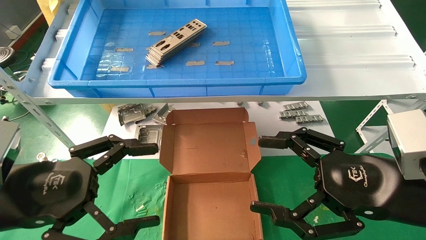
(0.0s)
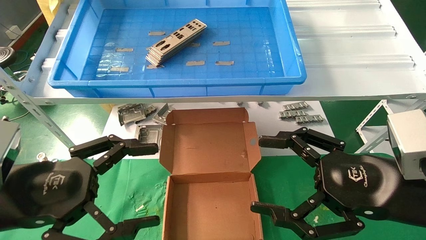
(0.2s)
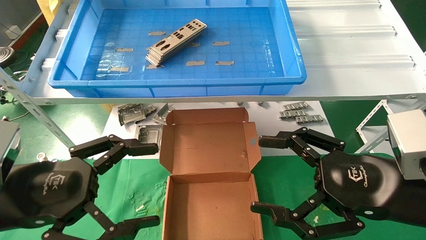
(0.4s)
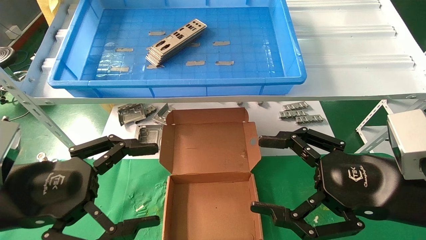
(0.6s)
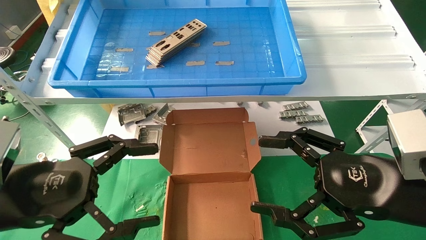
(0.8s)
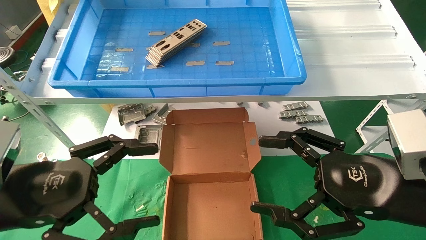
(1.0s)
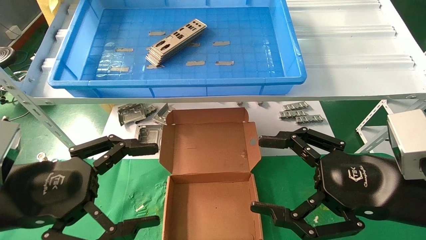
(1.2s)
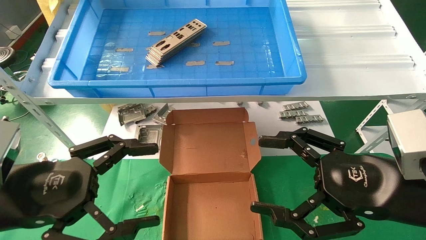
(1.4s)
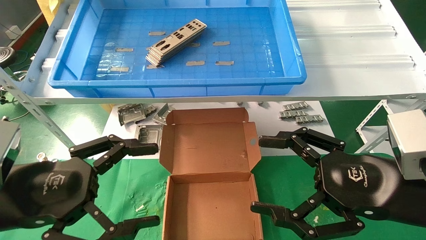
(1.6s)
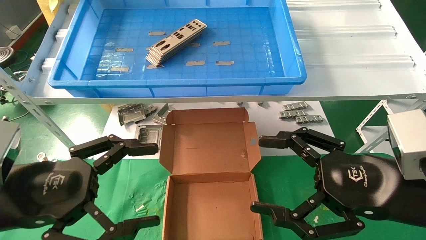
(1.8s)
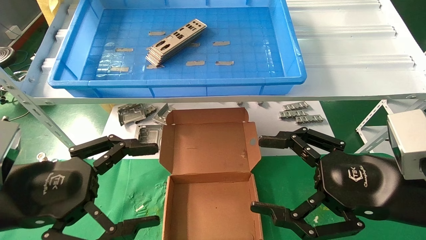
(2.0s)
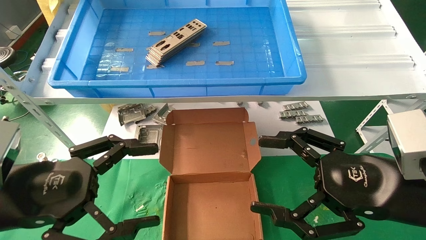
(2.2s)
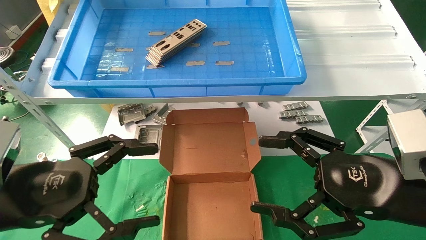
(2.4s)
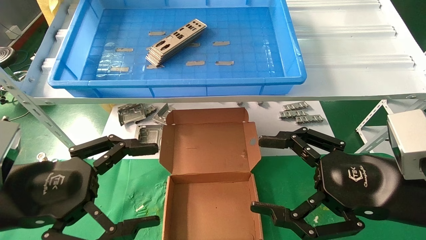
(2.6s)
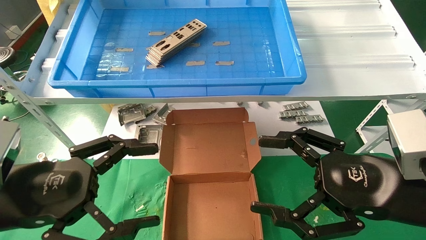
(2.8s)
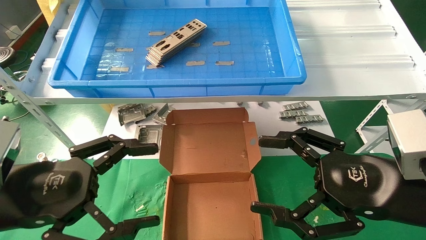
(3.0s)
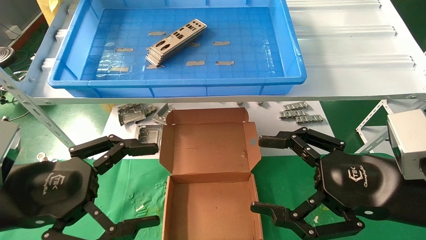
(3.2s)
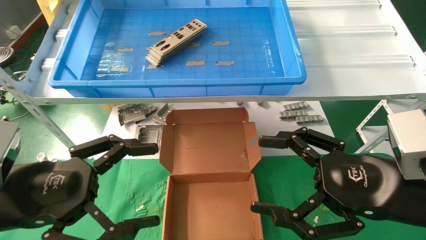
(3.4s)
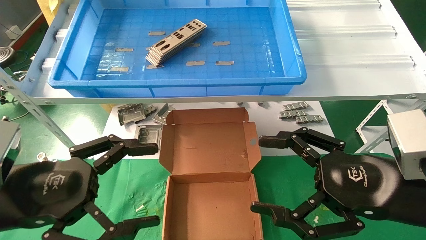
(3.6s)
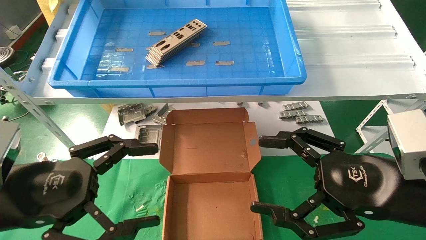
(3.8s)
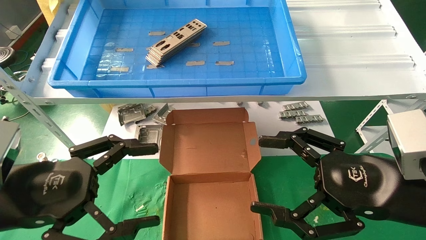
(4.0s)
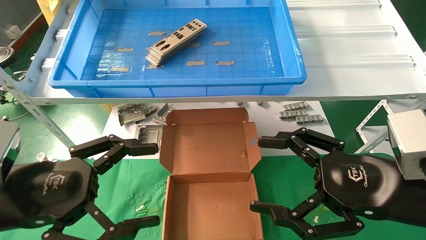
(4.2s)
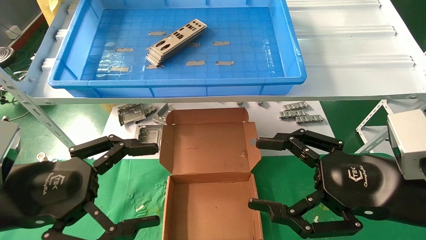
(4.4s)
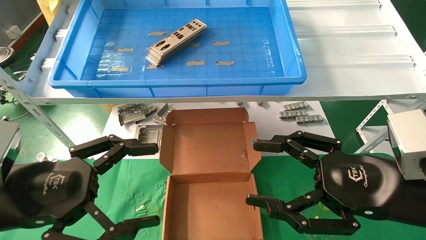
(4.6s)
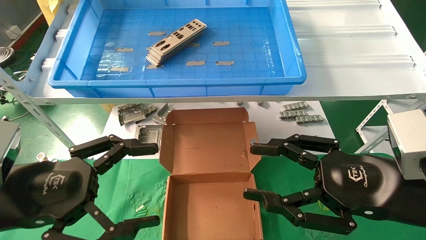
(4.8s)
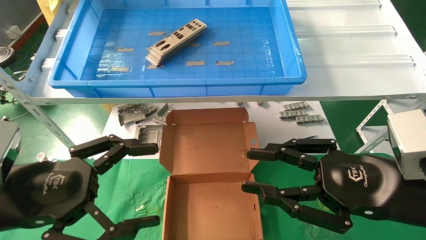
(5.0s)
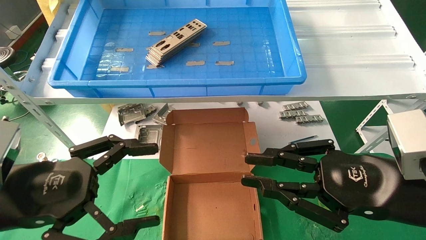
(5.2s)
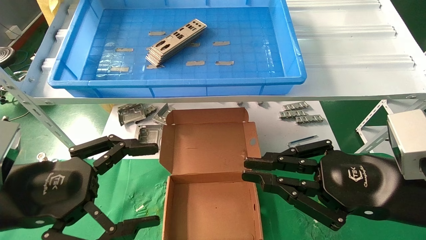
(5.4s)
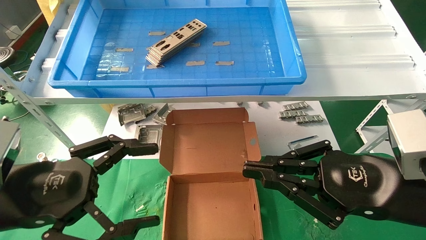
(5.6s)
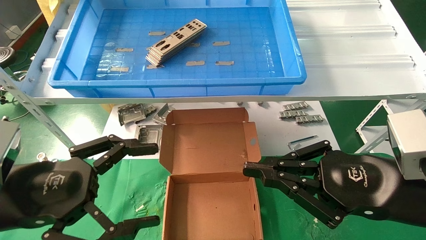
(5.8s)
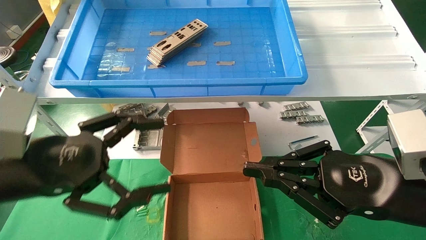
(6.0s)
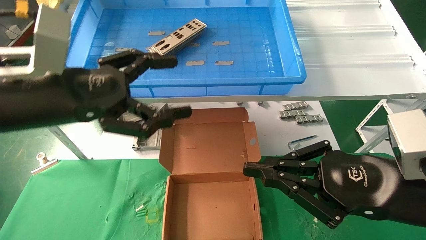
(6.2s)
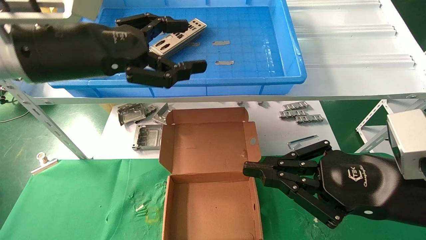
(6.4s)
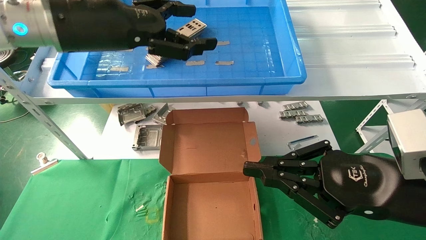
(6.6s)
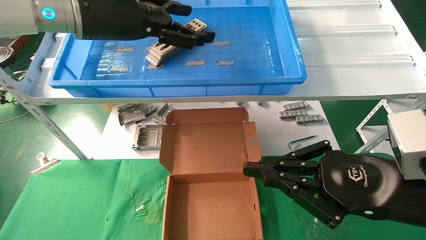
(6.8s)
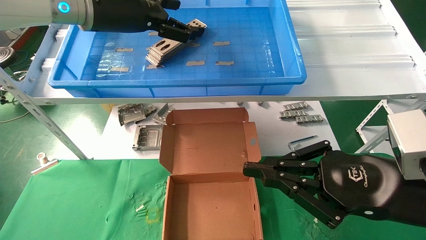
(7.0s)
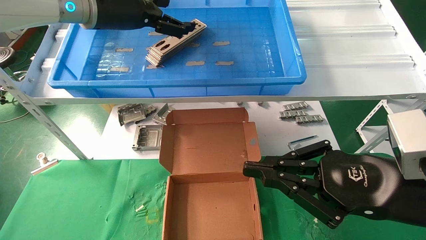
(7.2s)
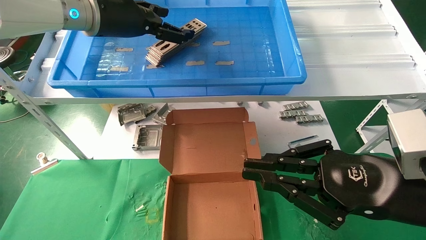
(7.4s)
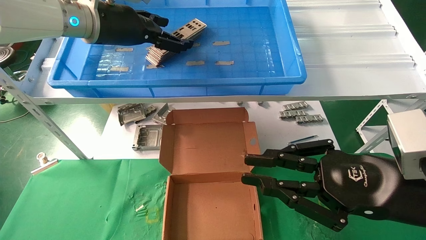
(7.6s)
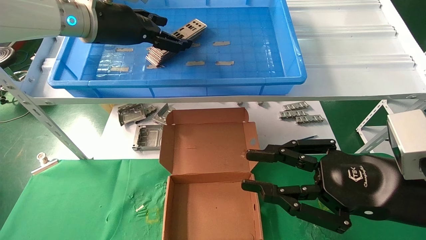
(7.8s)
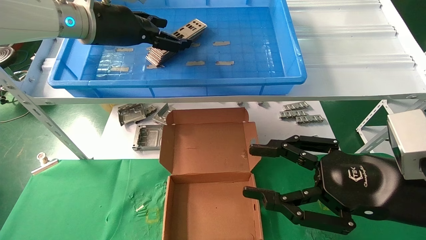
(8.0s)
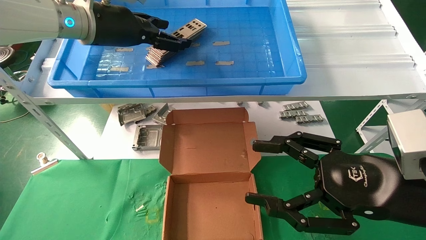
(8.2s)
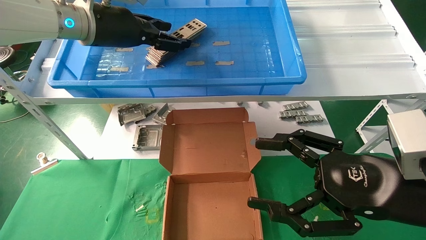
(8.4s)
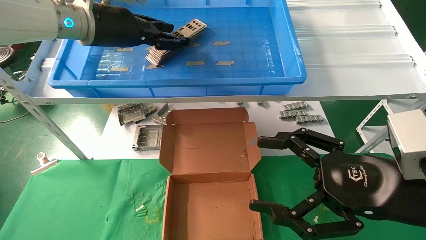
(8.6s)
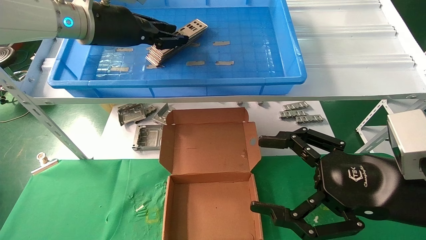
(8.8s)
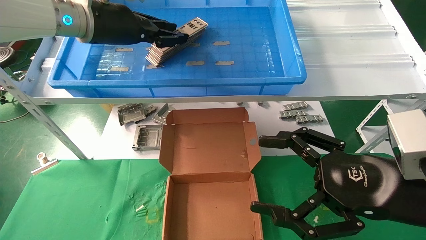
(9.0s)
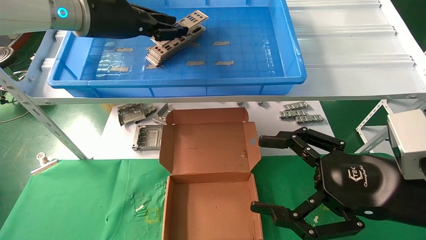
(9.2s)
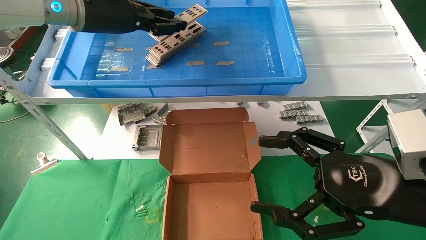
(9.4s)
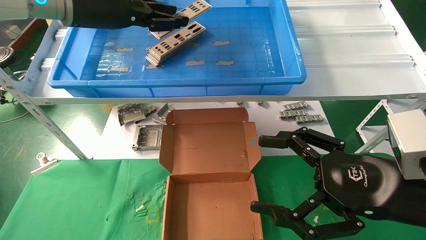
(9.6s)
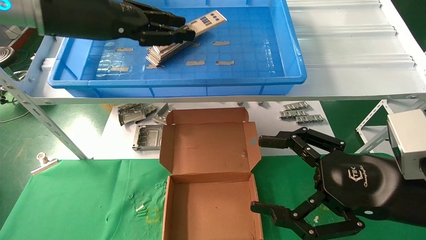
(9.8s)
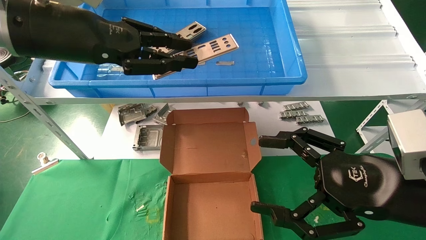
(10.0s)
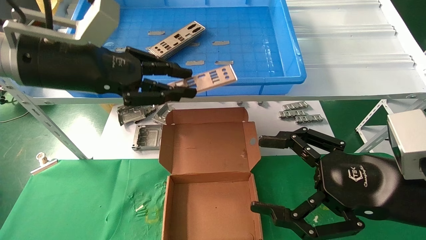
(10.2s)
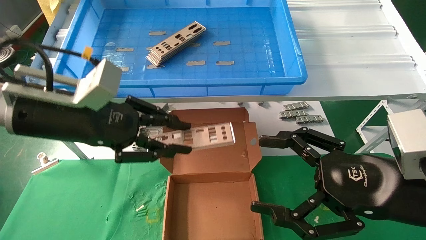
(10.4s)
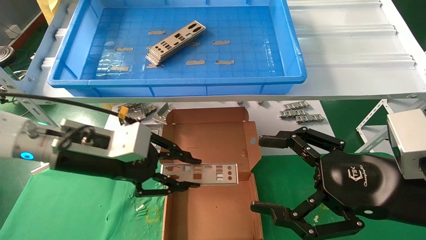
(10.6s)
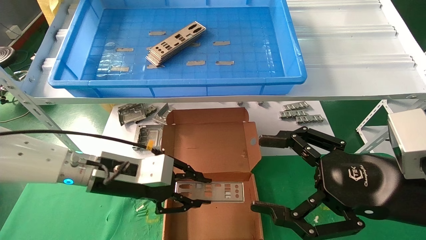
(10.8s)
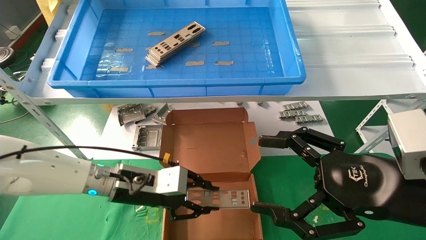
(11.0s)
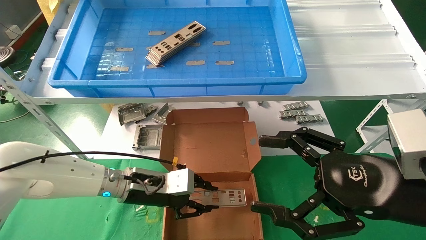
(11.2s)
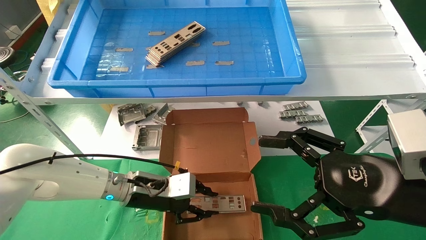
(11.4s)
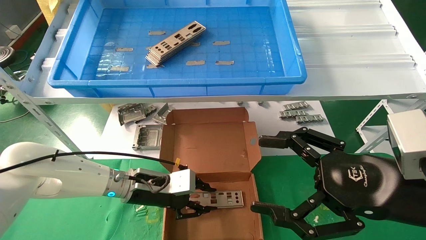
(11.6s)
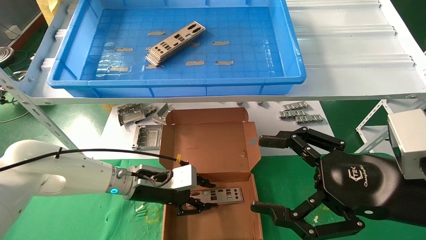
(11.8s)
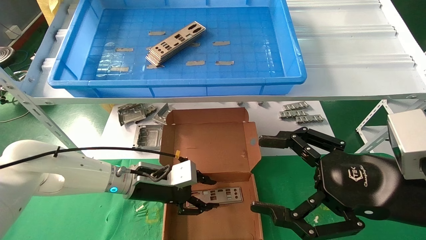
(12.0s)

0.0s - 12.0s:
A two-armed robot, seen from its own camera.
Task of the whole recording: pick up the parts on the tray and put them in the cardboard box.
Step, 6.4s - 9.0s: Pick up the IO bracket from the container box.
0.0s - 4.4s: Both grippers stay put.
4.4s - 6.0s: The left gripper goes about 5 cm upward. Meanwhile the right gripper closes.
6.0s - 7.6s: The left gripper is displaced forward and upward by approximately 25 cm.
7.6s - 9.0s: The left gripper closes, while the right gripper opens its fingers.
9.0s - 10.4s: The left gripper goes about 15 cm downward and backward.
10.4s - 12.0s: The left gripper goes about 20 cm downward and forward.

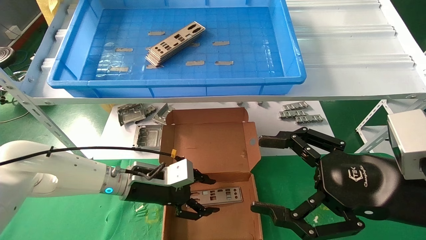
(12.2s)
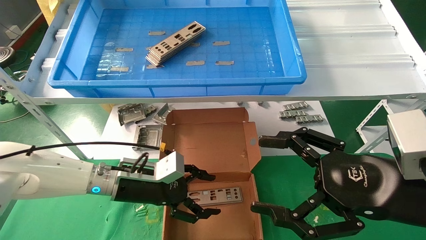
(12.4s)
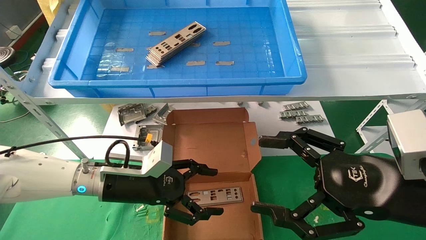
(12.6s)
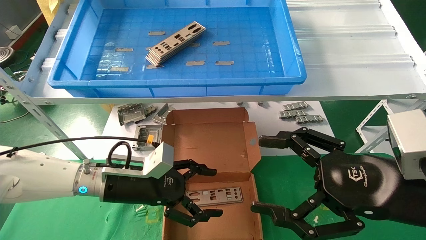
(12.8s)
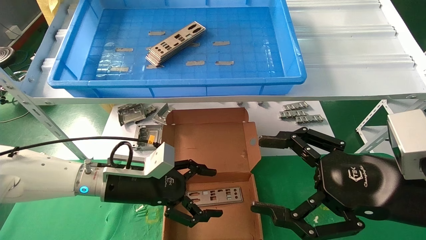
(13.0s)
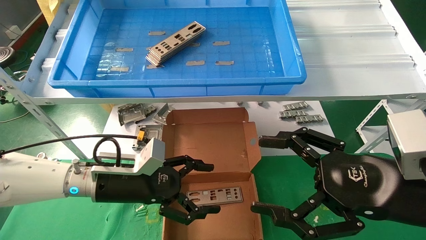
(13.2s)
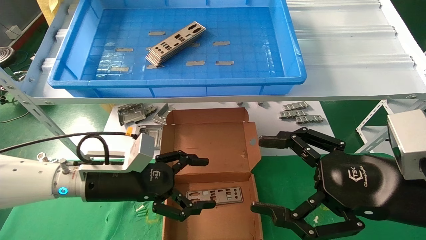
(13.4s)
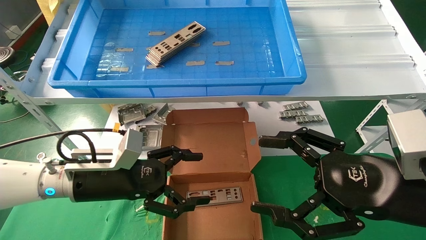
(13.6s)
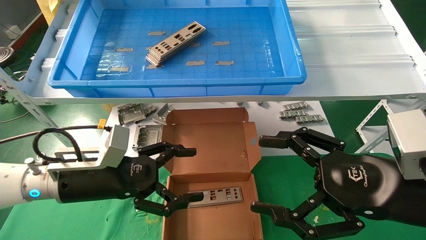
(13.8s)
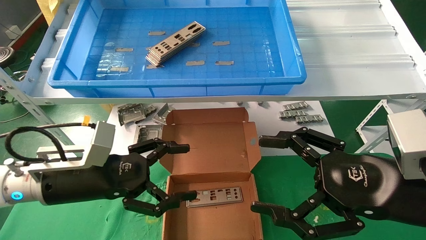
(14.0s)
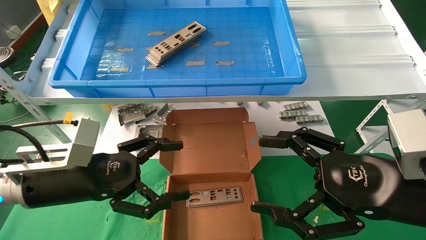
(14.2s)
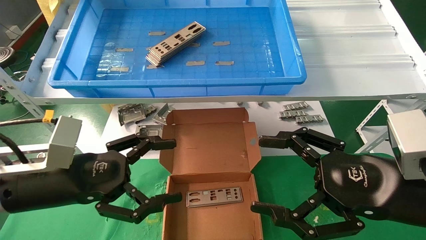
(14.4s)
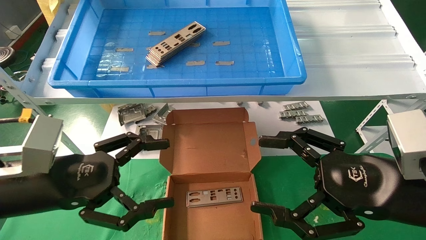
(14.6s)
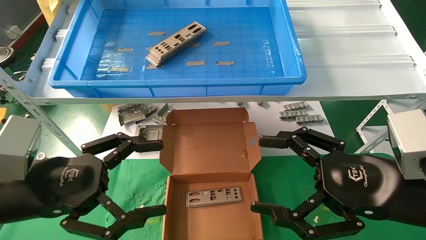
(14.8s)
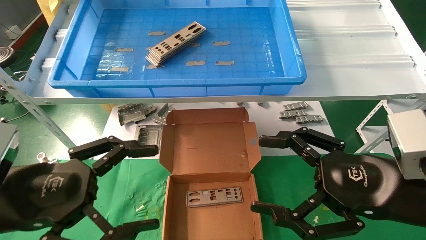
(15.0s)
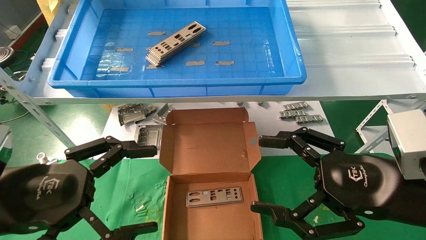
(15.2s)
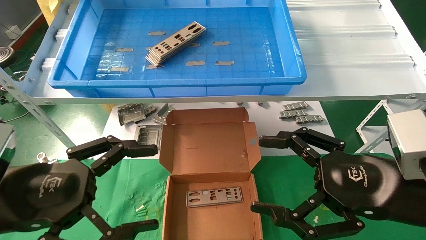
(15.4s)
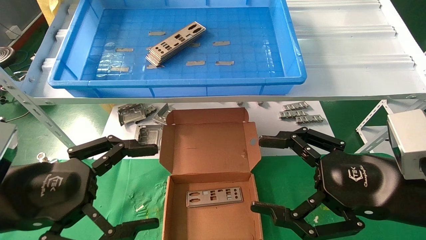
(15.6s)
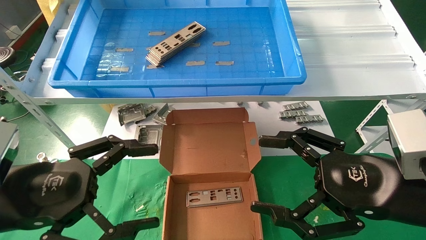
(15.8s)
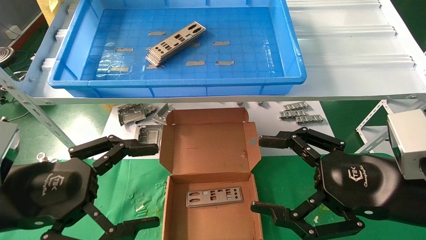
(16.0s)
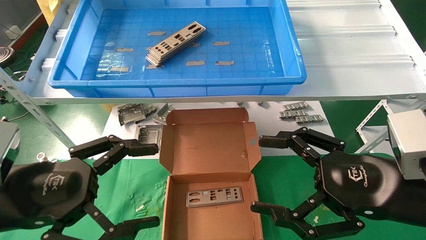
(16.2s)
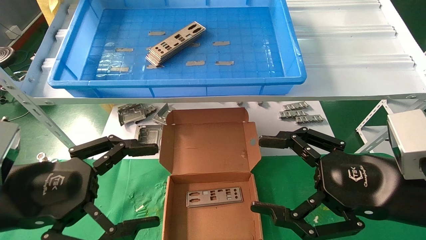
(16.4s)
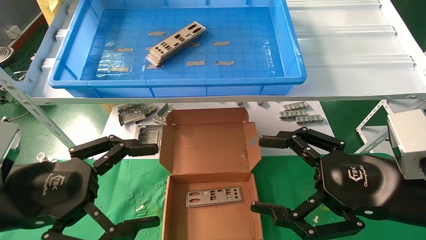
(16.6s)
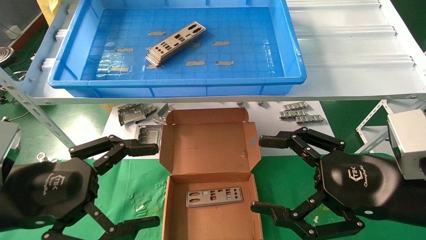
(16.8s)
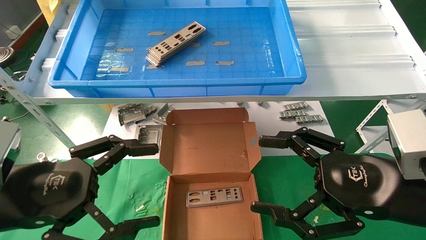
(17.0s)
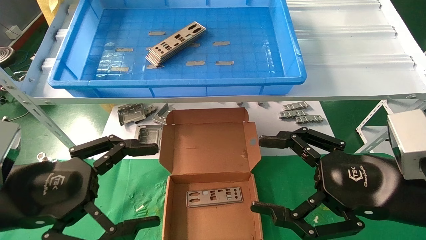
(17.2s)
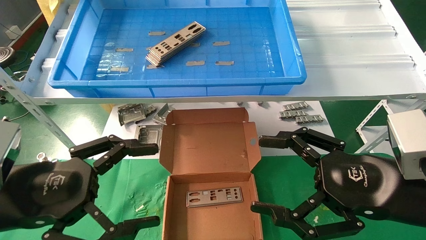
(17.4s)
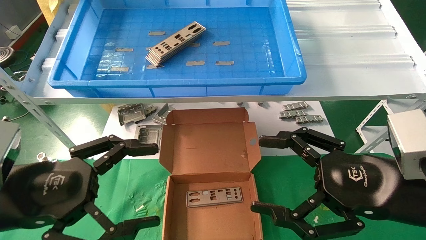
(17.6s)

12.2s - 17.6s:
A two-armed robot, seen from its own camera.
Task of the whole recording: pick up the parts on the tray and put them in the cardboard box.
12.2s - 13.6s: The left gripper goes some 10 cm backward and to the left, and opens up.
13.6s - 15.0s: The left gripper heads backward, upward and to the left, covering roughly 15 cm.
15.0s - 17.6s: Neither gripper changes place.
